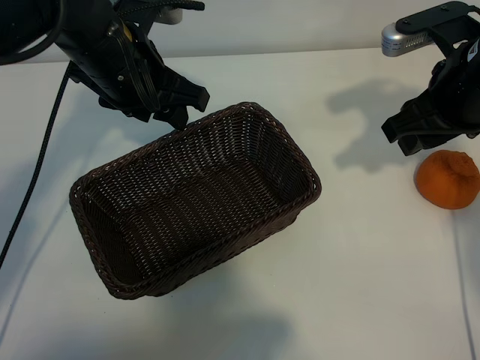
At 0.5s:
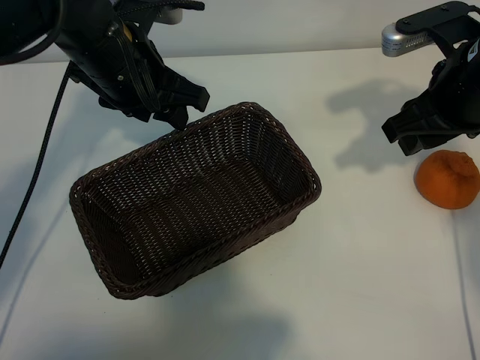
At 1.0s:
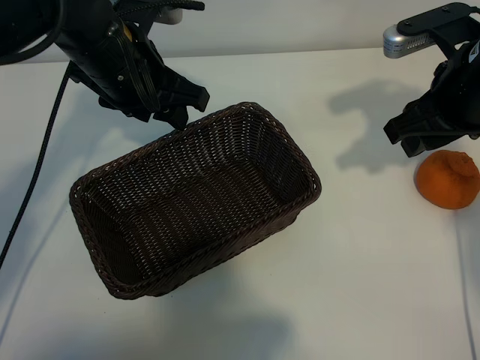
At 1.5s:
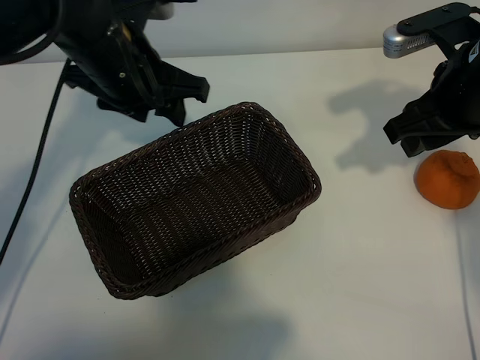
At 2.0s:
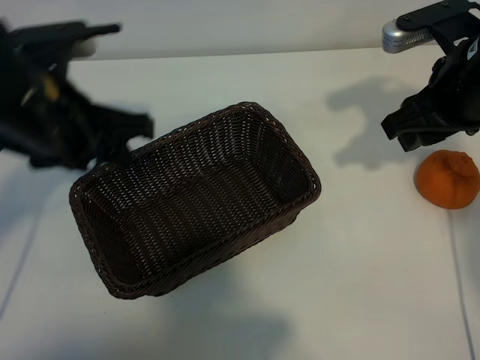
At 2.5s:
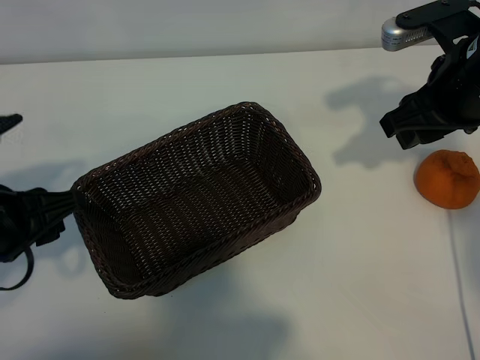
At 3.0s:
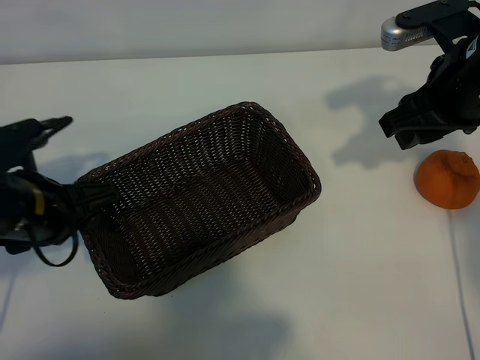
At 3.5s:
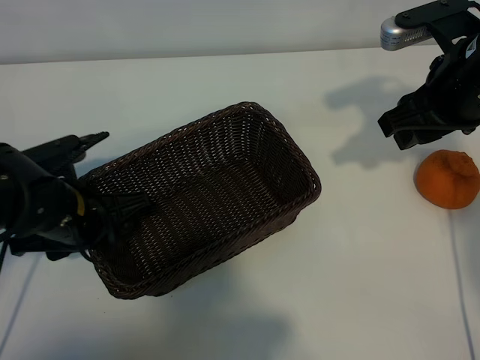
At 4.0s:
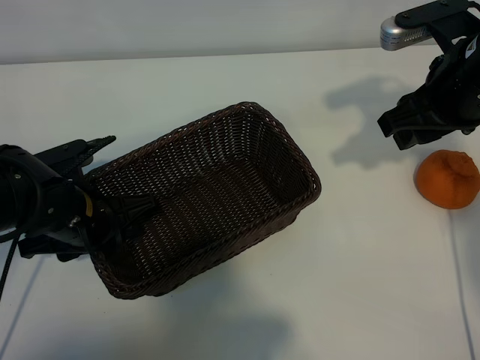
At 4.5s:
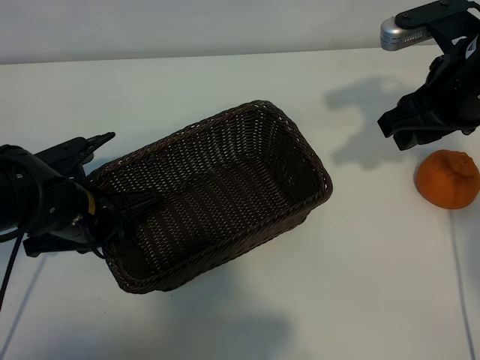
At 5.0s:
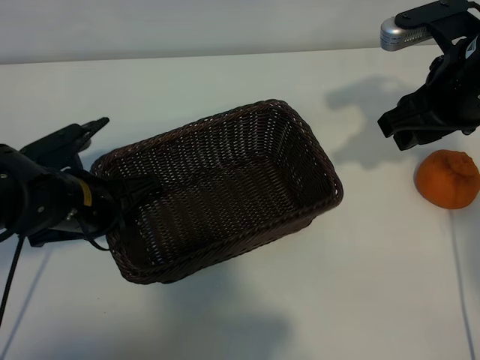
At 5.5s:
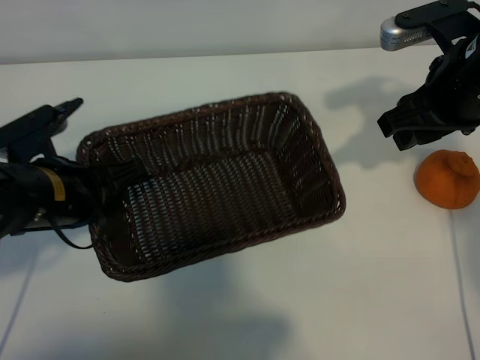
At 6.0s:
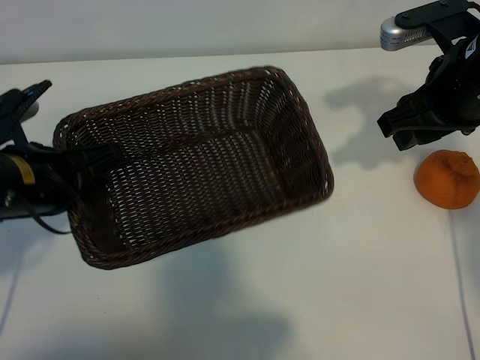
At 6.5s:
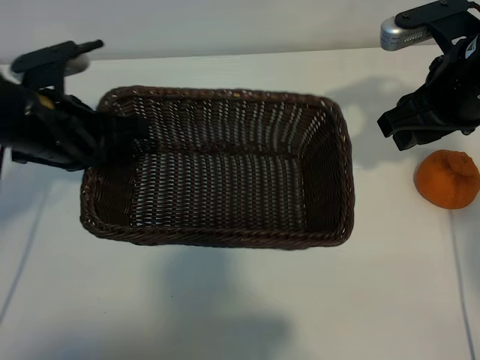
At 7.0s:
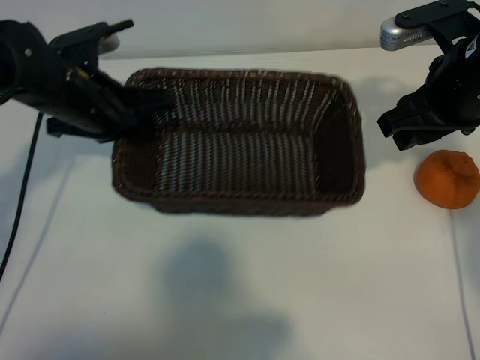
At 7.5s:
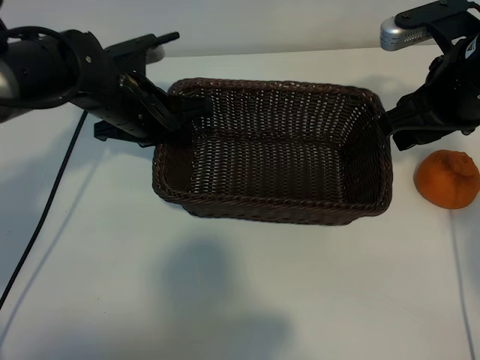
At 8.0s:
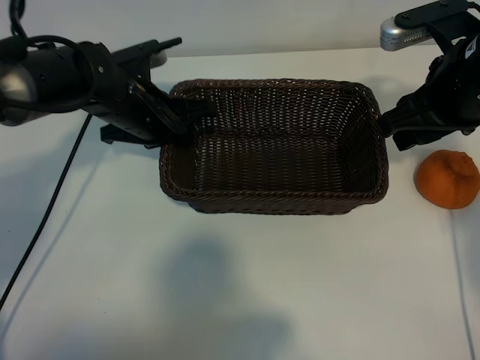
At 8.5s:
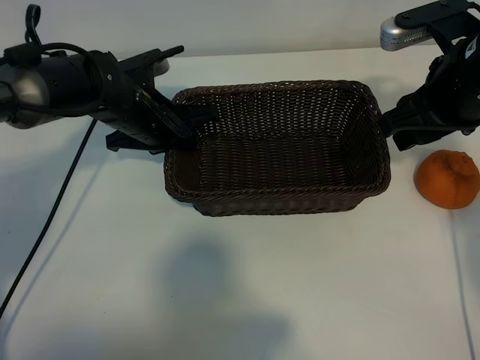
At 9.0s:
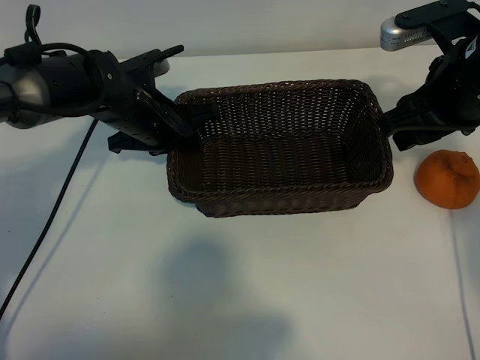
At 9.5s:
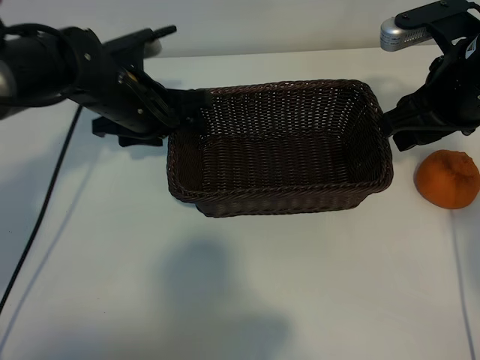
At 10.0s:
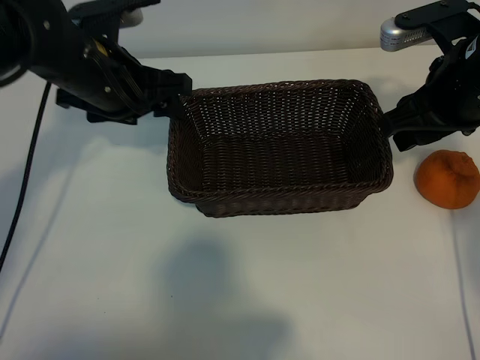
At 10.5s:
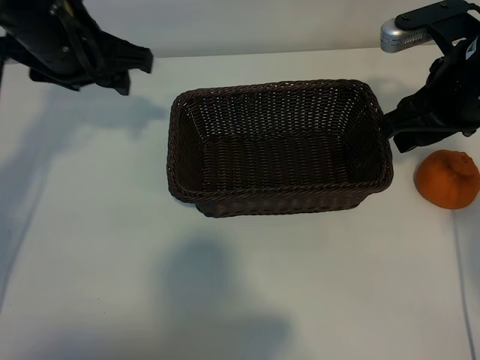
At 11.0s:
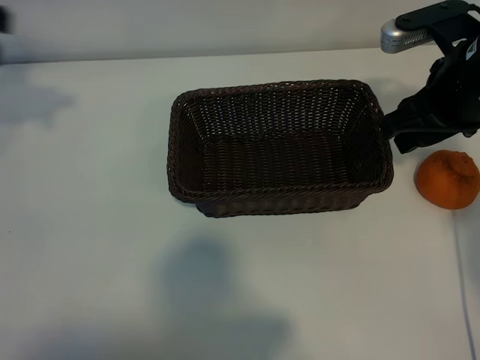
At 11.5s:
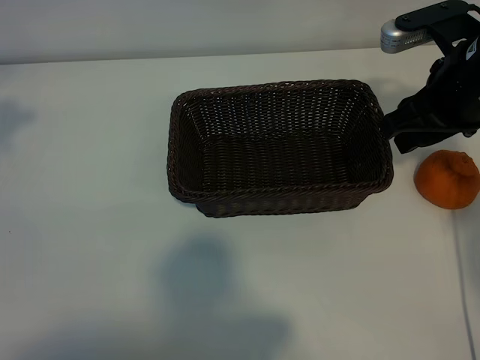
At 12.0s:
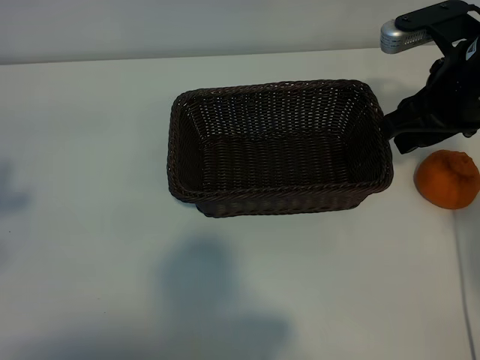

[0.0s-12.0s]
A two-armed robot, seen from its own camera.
Task of the whole recording: pick up the orange and put it into the basket.
Step, 1.0s to 4.0s: Grasp the basket with left gripper.
Step, 4.5s to 8.5s: Place the basket in the center of view with left gripper.

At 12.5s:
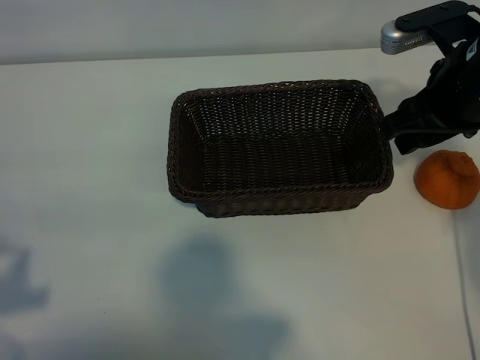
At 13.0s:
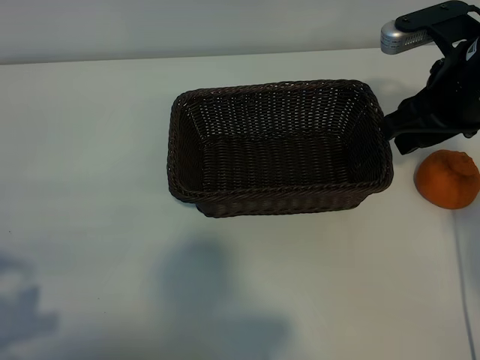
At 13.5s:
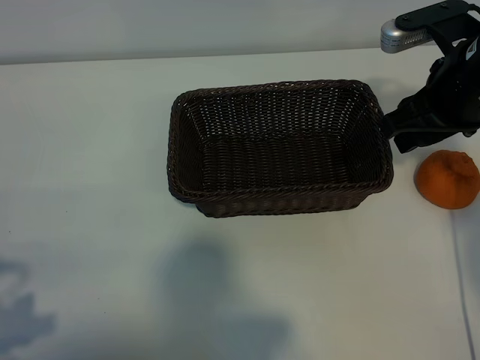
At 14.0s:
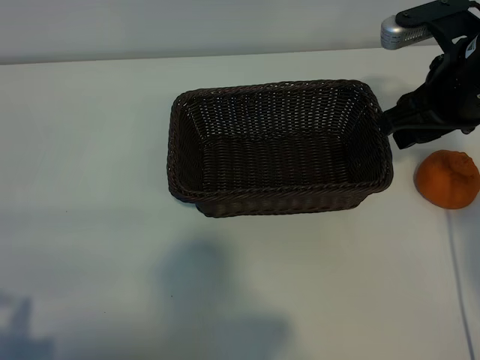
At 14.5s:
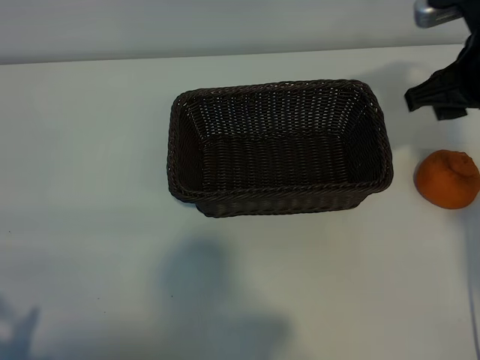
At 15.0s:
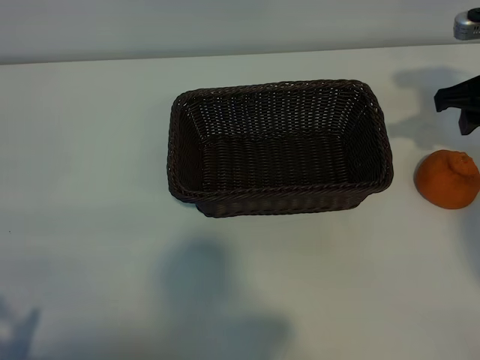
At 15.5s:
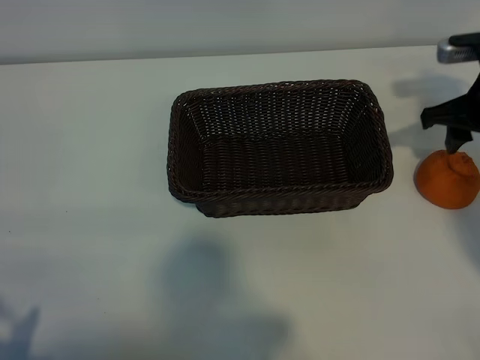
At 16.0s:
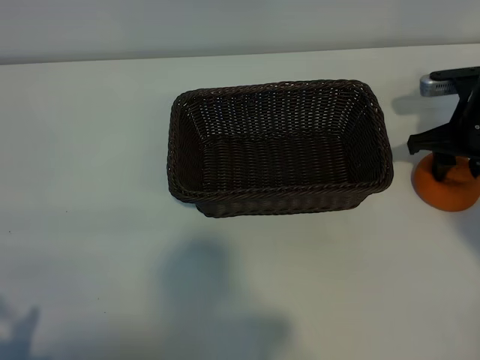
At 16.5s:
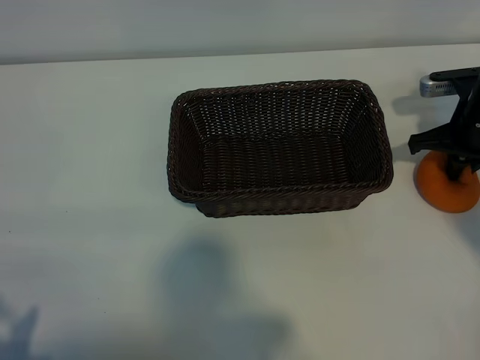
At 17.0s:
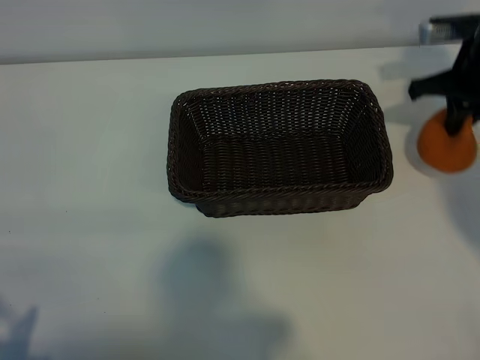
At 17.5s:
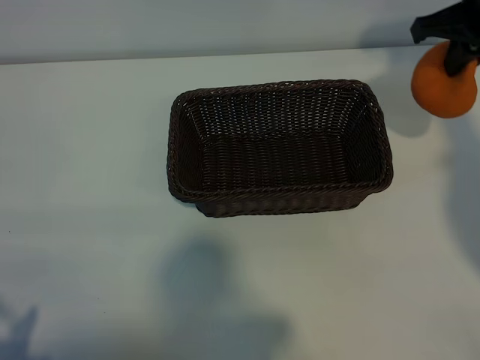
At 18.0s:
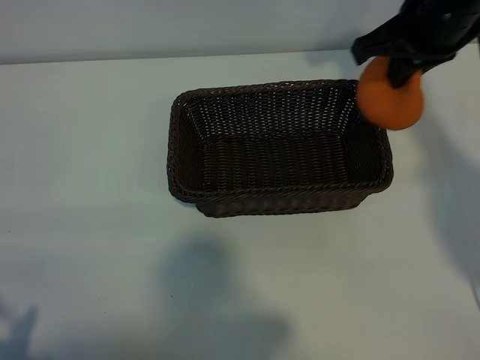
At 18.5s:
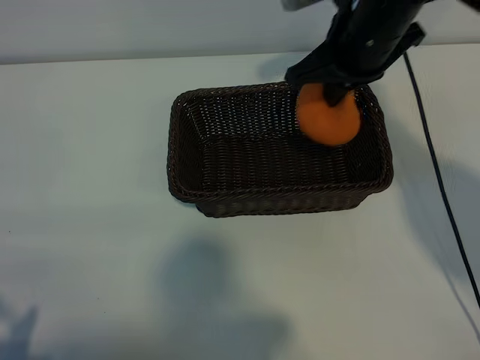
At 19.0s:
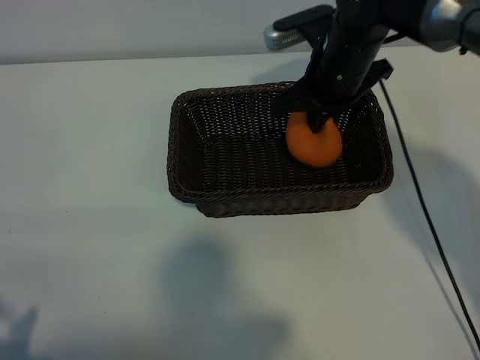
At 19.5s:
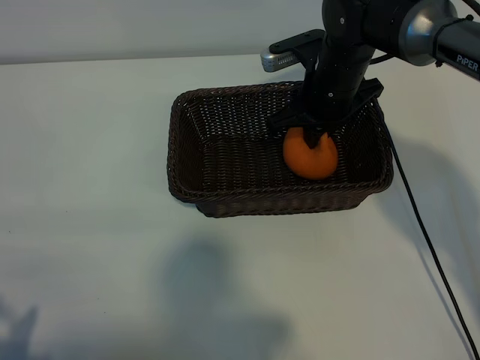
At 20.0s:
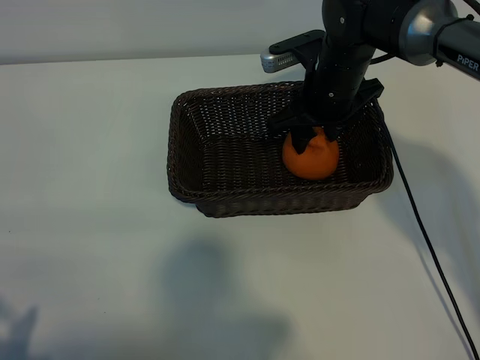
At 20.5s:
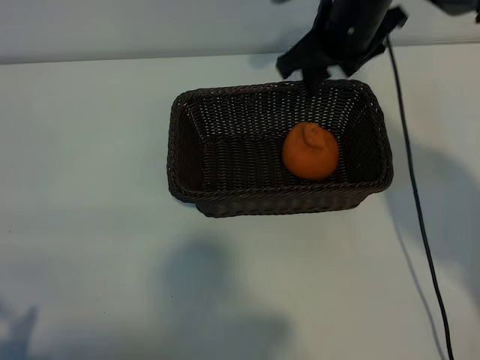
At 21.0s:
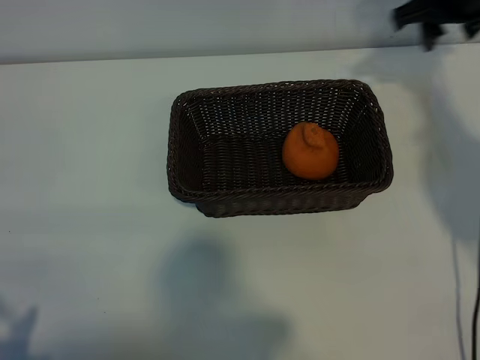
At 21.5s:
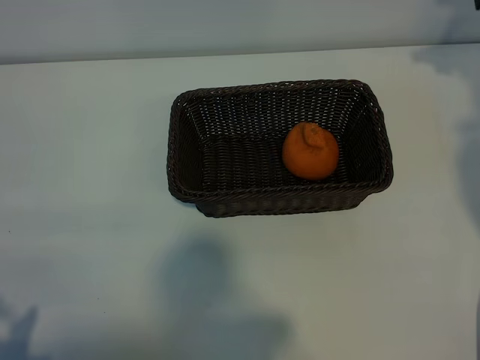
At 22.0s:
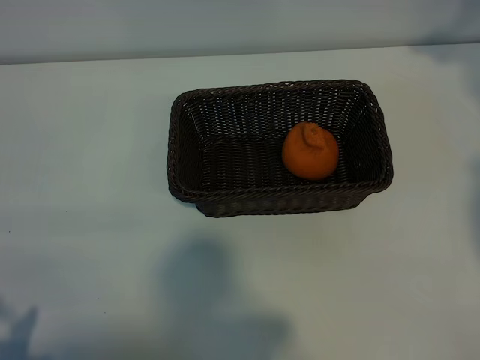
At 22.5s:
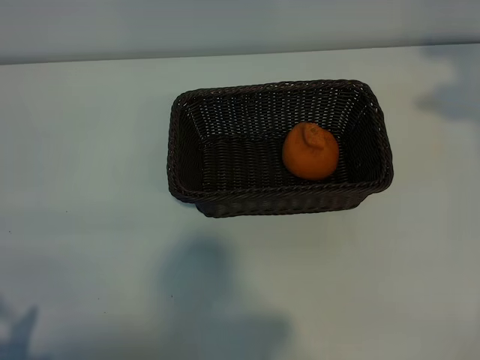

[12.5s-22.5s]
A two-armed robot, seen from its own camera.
Task of the whole recording: pick up the orange and put it into the basket.
Step, 12.5s to 16.0s: Grasp the orange with right gripper.
Step, 17.0s to 19.5s: Place the orange in the basket with right gripper.

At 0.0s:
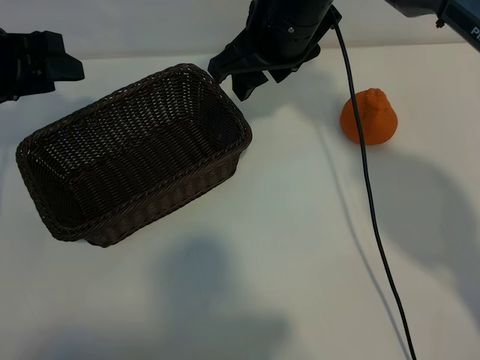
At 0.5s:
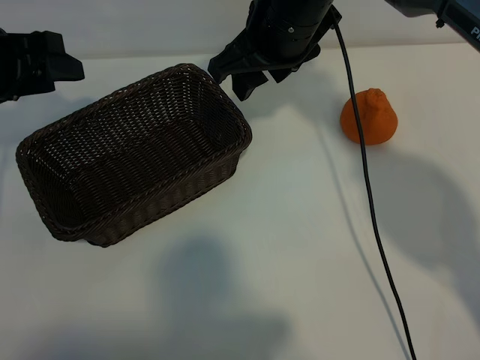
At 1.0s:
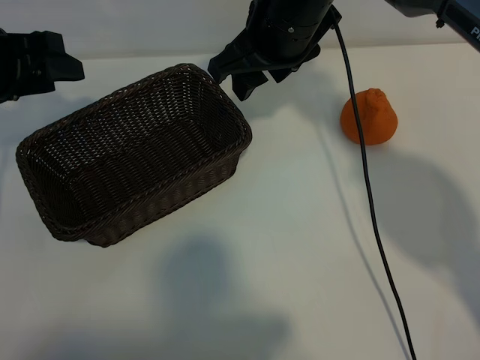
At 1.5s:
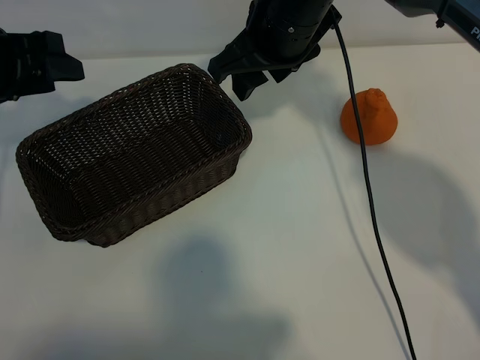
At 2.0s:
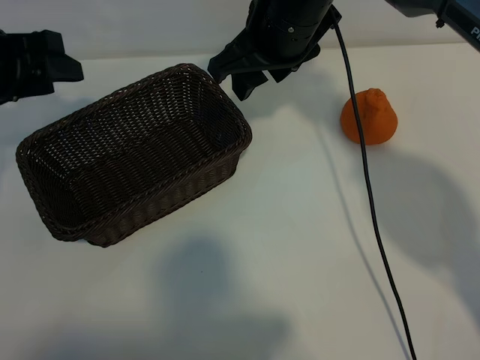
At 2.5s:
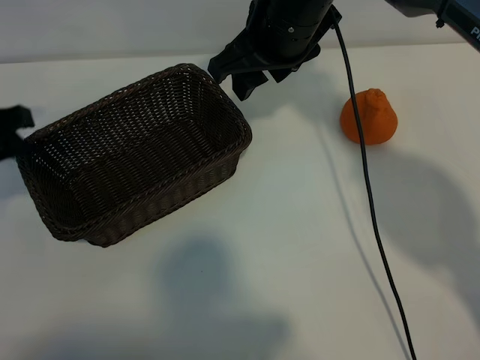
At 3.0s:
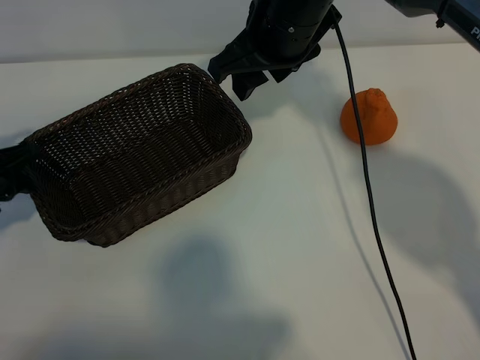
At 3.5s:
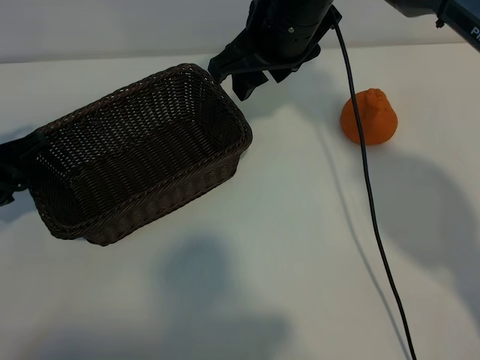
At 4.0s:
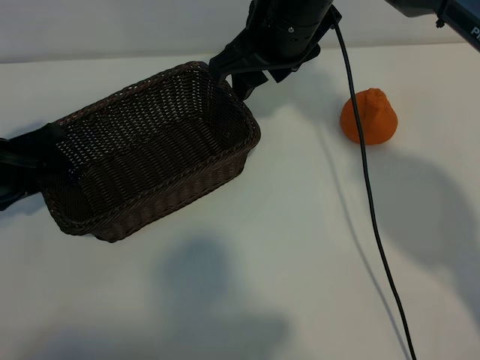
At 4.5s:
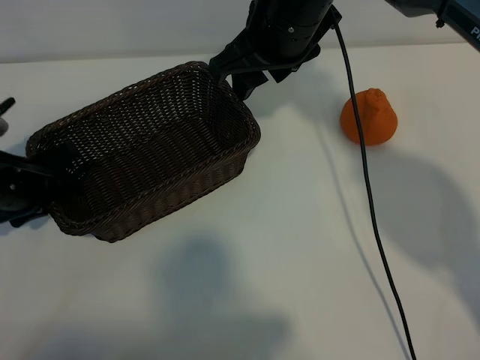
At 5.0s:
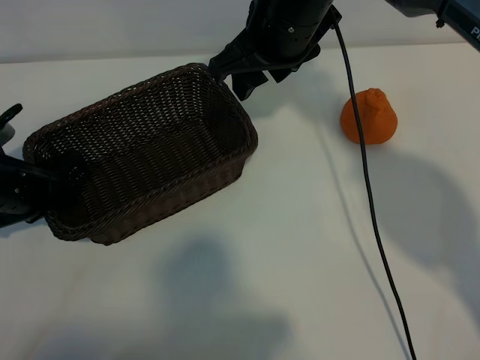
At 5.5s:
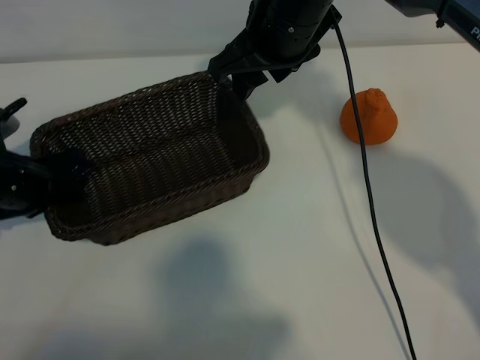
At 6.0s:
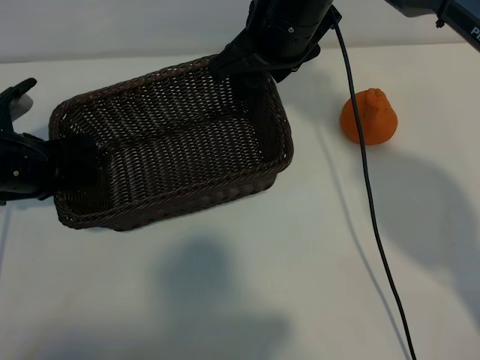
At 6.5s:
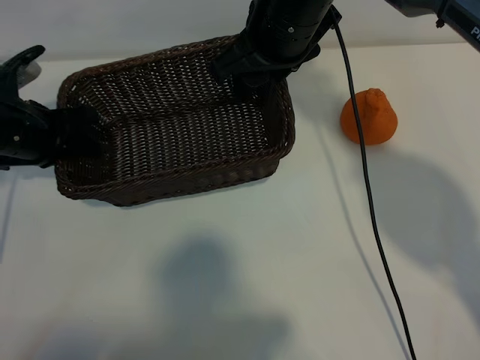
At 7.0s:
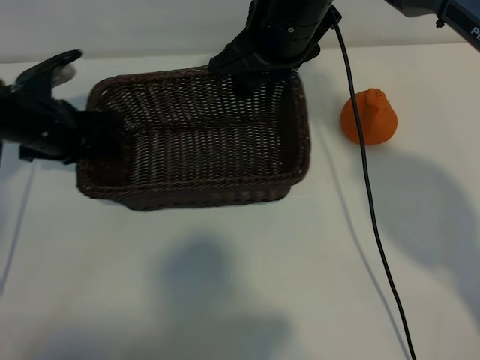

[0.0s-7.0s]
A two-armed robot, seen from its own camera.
Task of the whole recording: pick up the orange and put it into the basket.
Step, 2.0s to 5.0s: Grasp the basket with left gripper.
